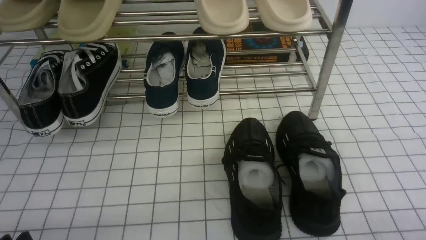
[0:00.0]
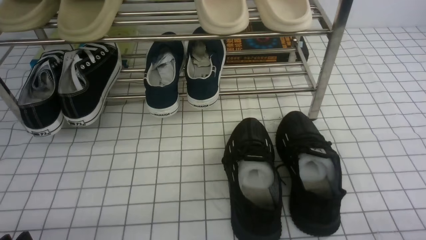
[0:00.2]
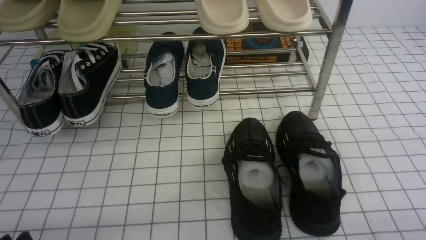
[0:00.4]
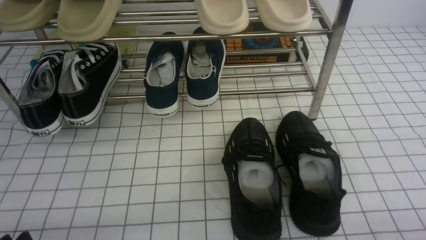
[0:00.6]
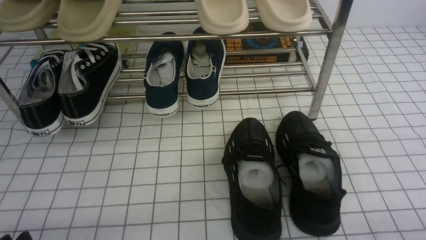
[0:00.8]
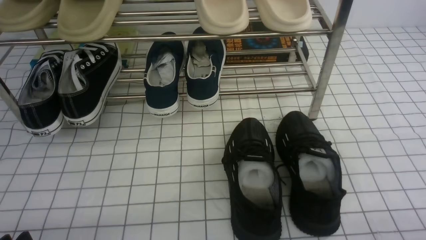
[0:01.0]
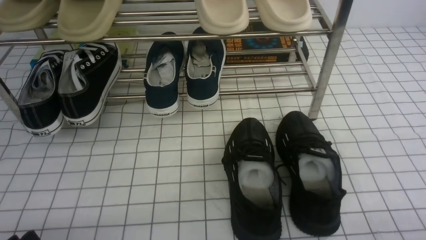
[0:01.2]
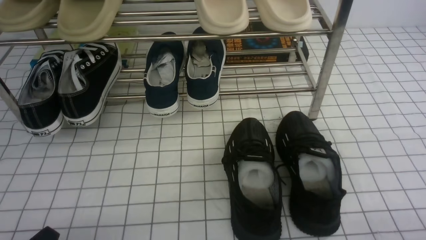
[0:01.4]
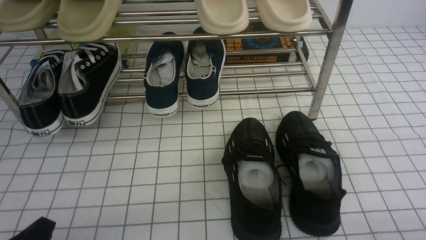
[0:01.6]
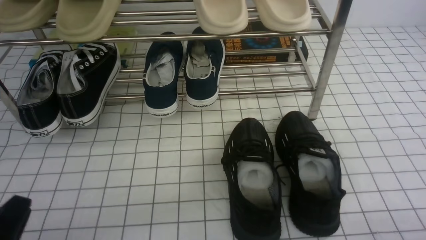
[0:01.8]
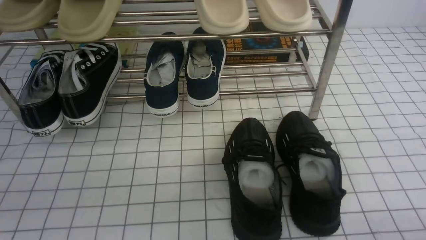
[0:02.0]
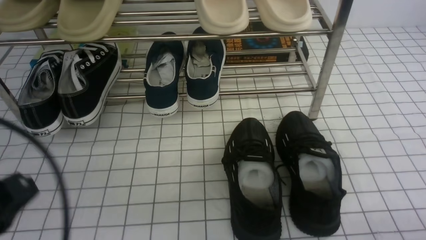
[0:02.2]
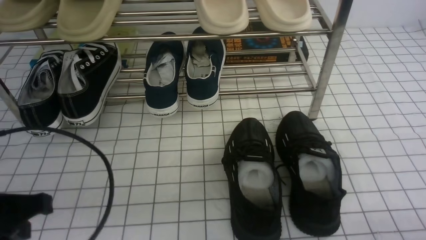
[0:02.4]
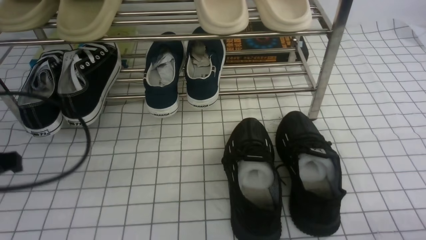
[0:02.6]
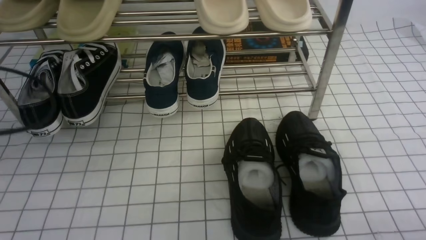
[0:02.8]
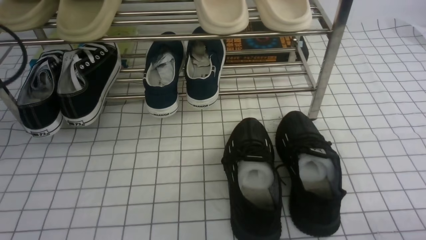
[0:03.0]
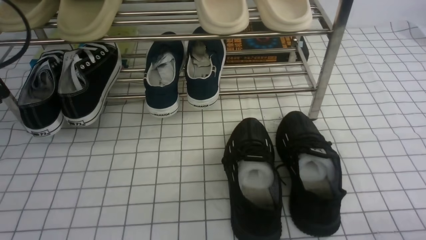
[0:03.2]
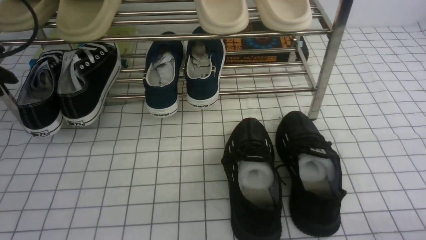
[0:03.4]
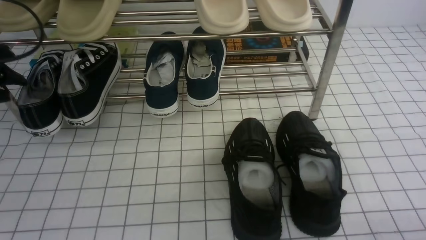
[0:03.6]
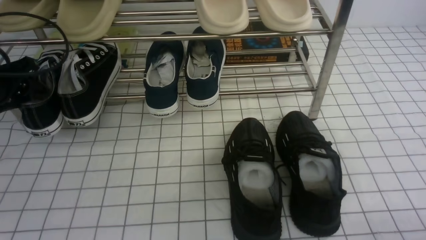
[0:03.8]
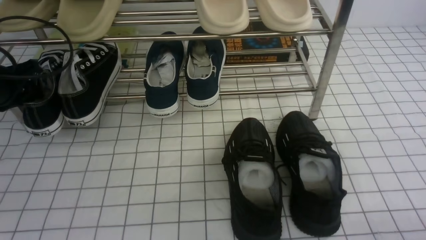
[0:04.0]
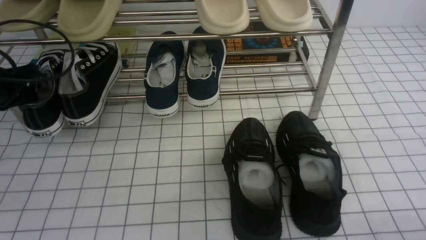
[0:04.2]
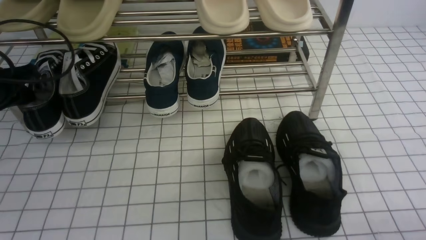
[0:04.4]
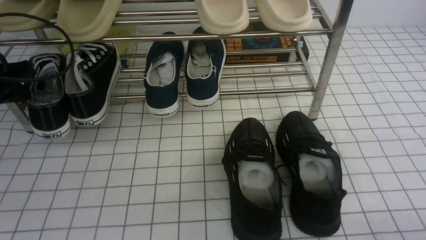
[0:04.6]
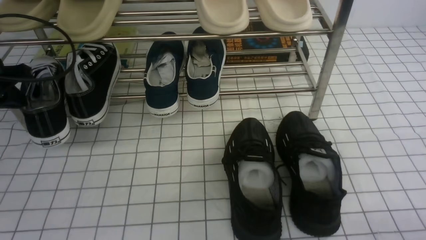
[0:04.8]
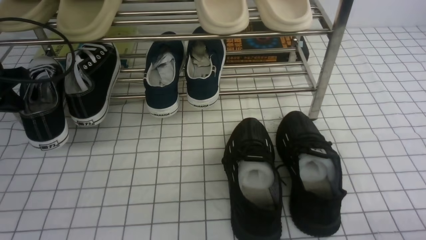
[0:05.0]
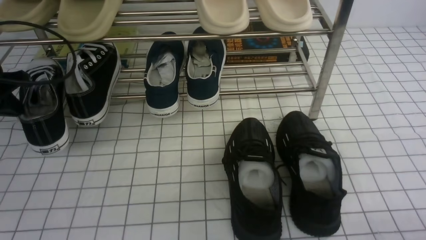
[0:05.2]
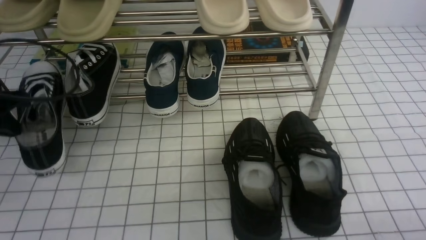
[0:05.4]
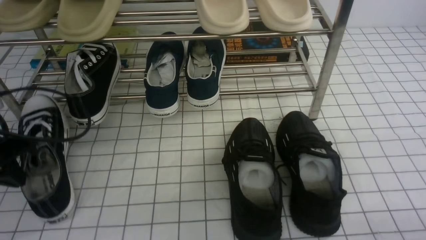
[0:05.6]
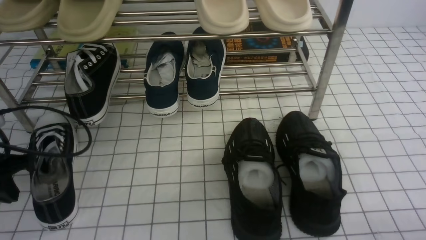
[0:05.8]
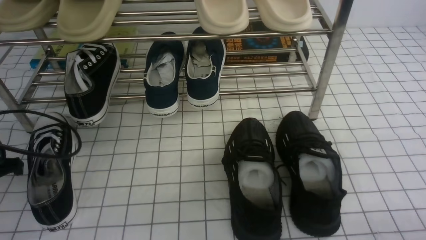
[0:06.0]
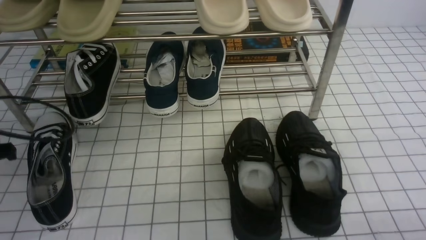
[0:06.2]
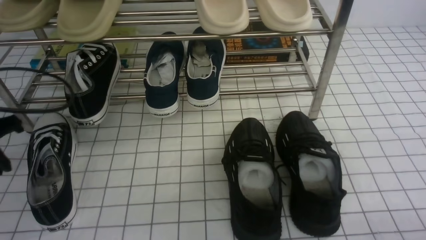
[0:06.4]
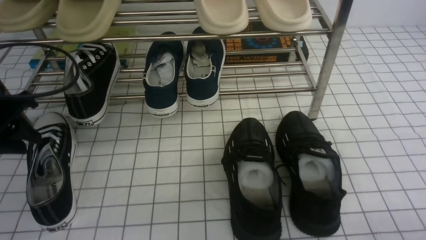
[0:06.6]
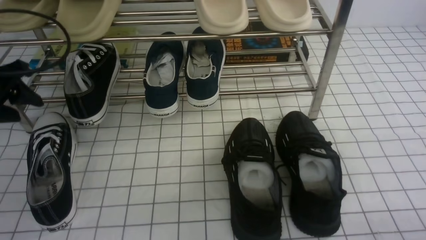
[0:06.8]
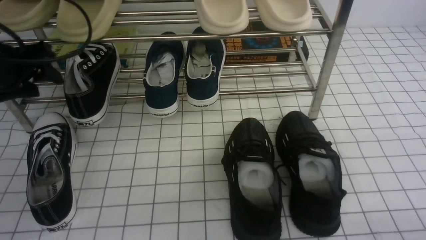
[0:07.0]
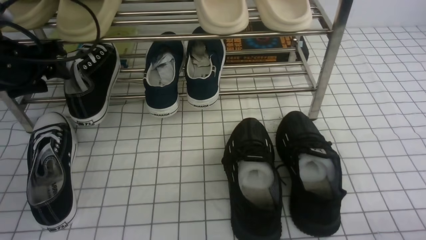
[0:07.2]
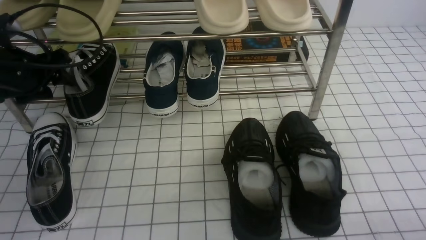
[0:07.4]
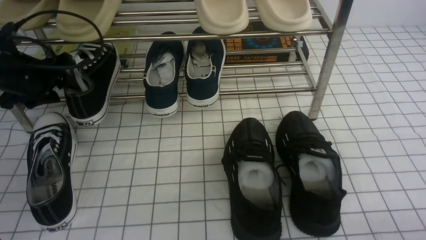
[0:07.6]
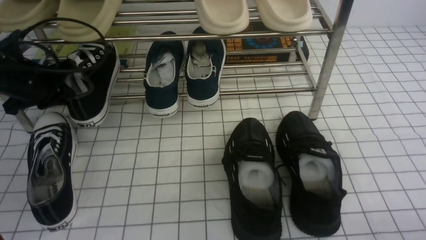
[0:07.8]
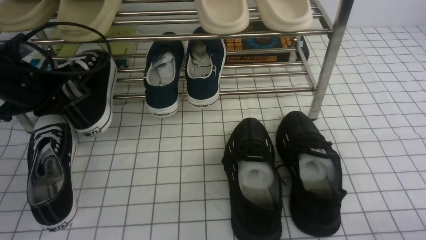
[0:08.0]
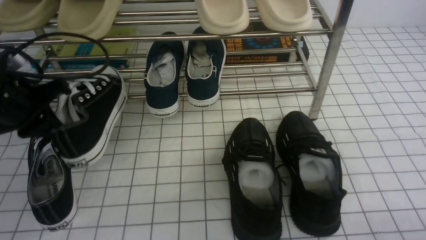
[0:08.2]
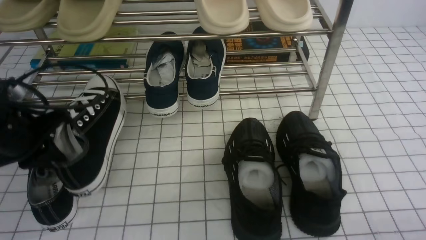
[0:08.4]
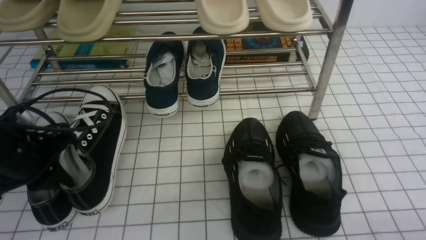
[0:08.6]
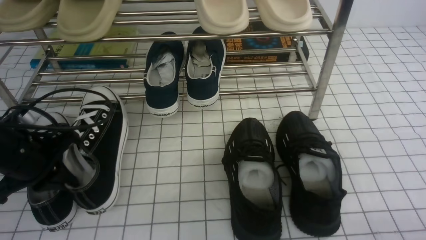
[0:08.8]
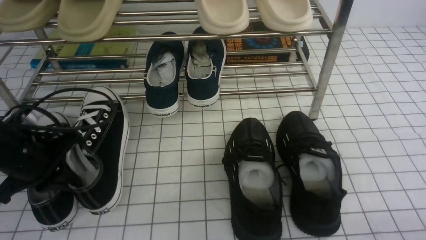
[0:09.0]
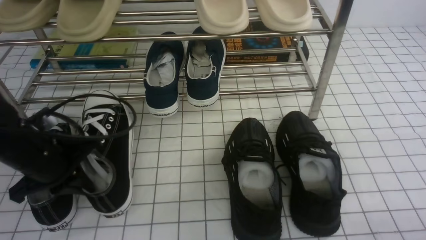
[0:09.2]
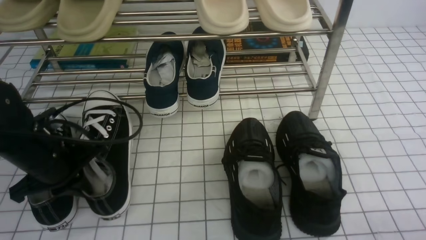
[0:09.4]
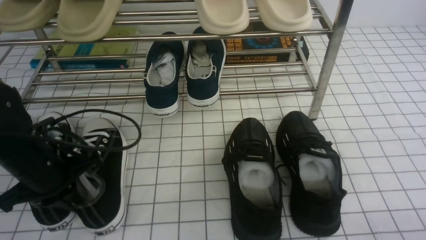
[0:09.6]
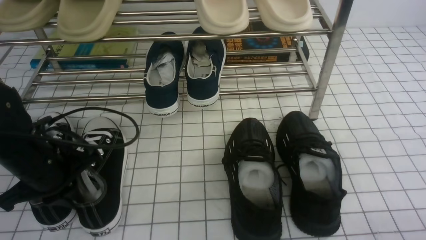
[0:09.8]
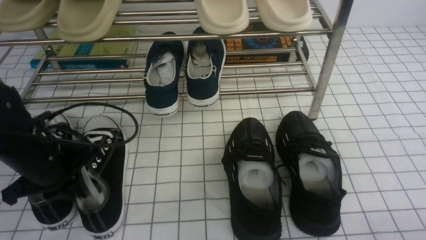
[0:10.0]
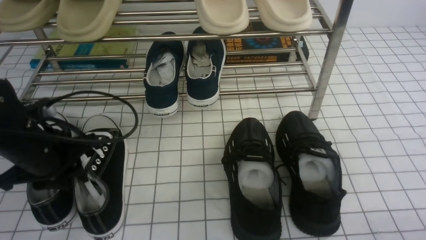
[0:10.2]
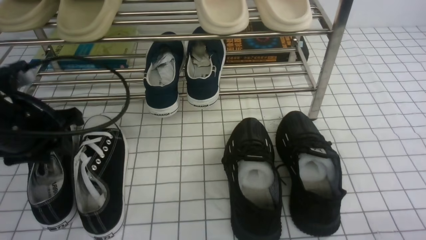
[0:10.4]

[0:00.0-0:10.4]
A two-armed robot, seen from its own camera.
Step, 0:00.0 to 0:04.2: use the left arm to clamp a shoe on the left side of the shoe rack.
Step, 0:04.4 to 0:05.8: Use your left arm to remove the clamped shoe from the shoe rack and put it down.
Step, 0:06.0 to 0:07.8: use the left arm to clamp a shoe on the left side of the shoe rack.
Step, 0:08.0 to 0:10.2: Use your left arm to remove the clamped shoe from the shoe rack and put it down.
0:01.4 to 0:03.0: The left gripper moves forward, upward and to the left, some 25 cm, and closes its fingers.
0:03.0 to 0:04.4: The left gripper heads forward and downward, covering some 10 cm, and opens, then closes once more.
0:04.4 to 0:06.0: The left gripper heads backward, covering about 10 cm.
0:06.0 to 0:07.4: The left gripper is displaced forward by about 10 cm, and opens its fingers.
0:07.4 to 0:09.0: The left gripper travels backward and downward by about 10 cm, and closes its fingers.
0:09.0 to 0:10.4: The left gripper is displaced upward by some 10 cm, and opens up.

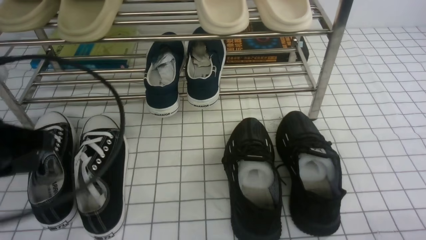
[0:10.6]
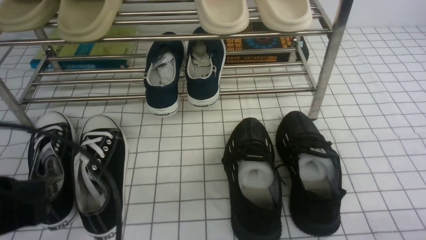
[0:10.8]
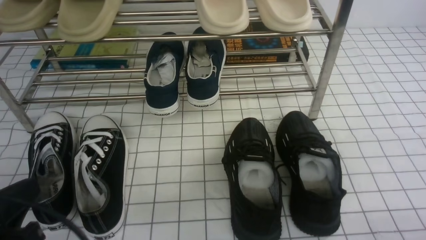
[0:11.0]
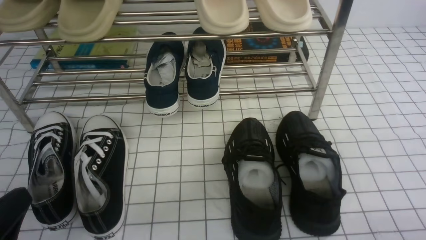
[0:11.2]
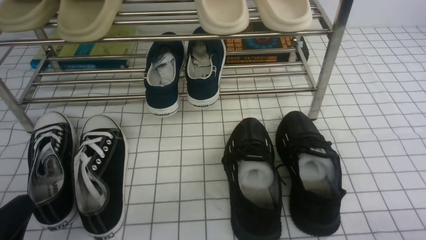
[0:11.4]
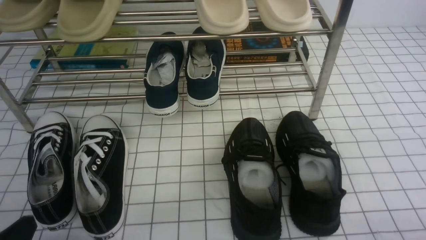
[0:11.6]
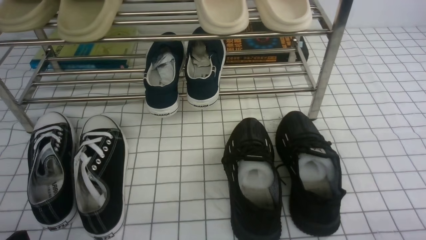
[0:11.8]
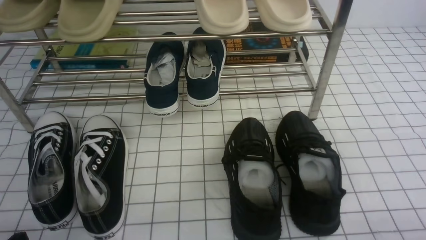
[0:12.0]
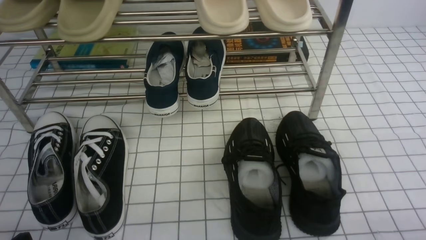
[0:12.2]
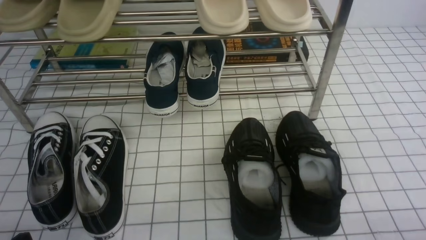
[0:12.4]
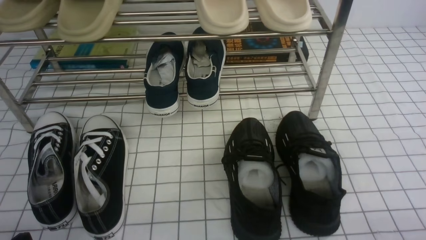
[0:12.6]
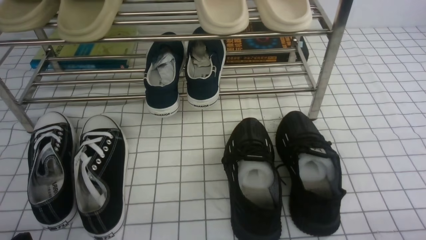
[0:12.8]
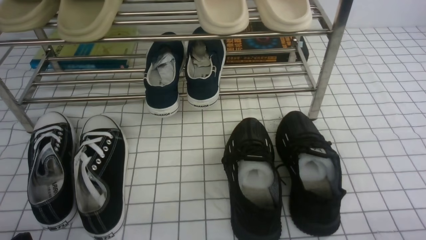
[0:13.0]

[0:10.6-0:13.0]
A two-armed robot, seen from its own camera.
0:10.6 to 0:11.8: The left gripper is displaced downward and backward by about 20 cm.
0:11.8 to 0:13.0: The two grippers keep their place.

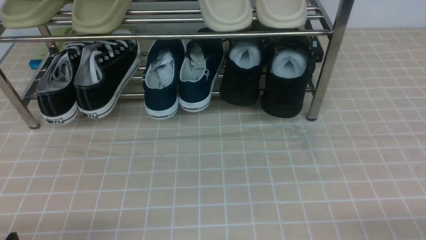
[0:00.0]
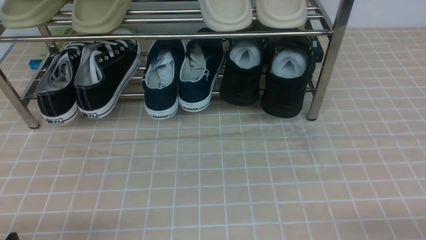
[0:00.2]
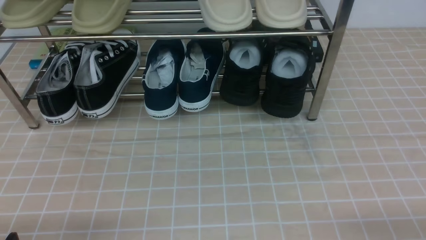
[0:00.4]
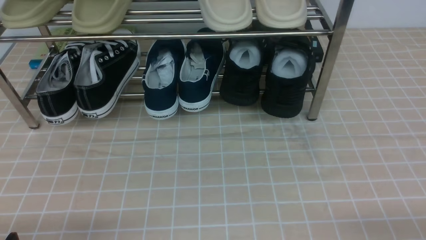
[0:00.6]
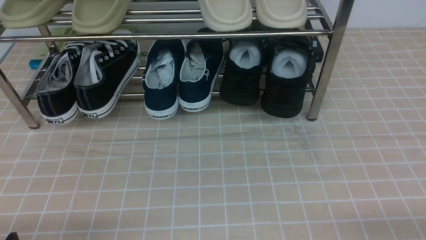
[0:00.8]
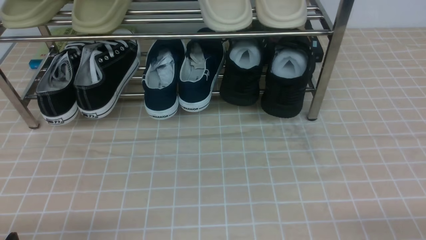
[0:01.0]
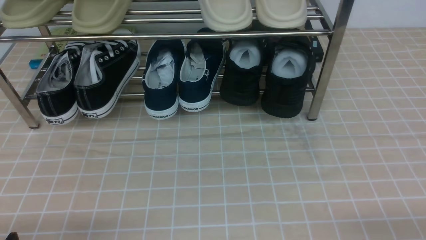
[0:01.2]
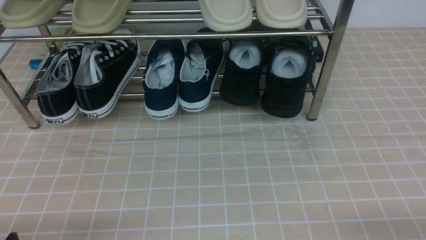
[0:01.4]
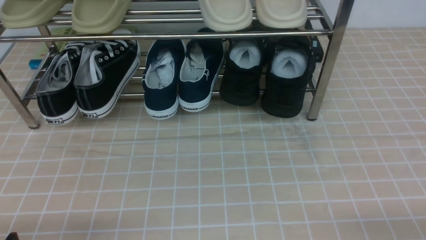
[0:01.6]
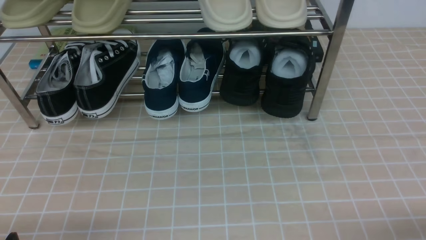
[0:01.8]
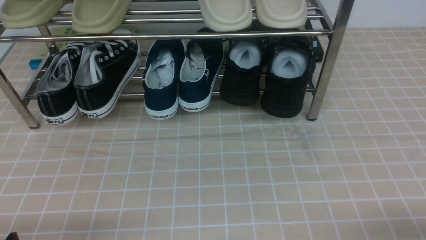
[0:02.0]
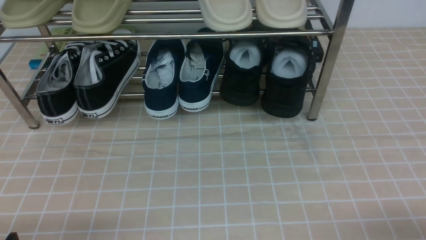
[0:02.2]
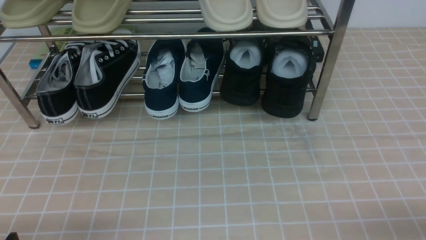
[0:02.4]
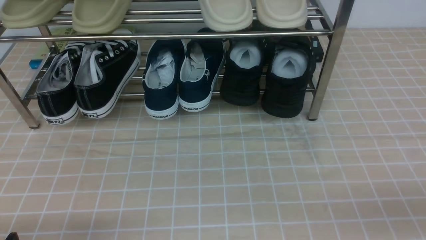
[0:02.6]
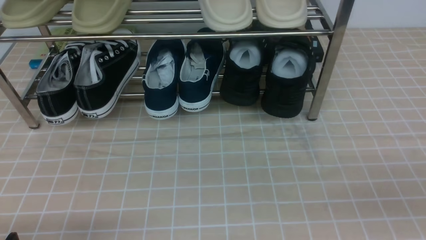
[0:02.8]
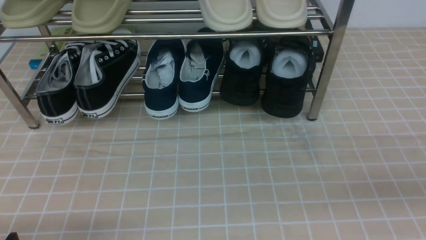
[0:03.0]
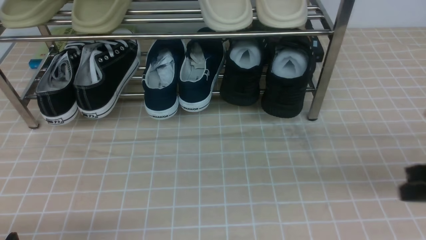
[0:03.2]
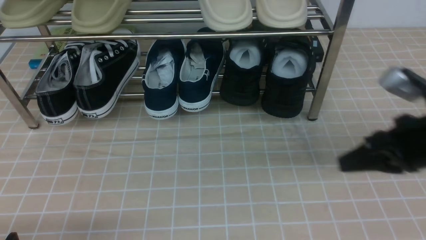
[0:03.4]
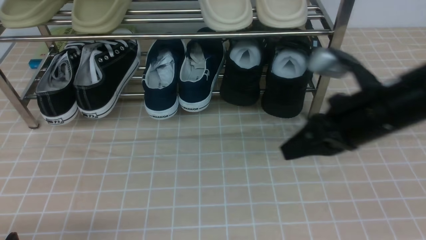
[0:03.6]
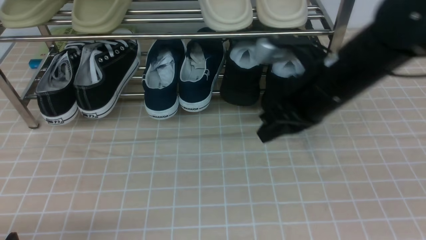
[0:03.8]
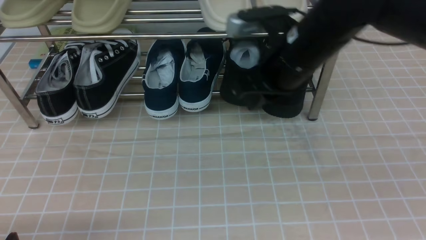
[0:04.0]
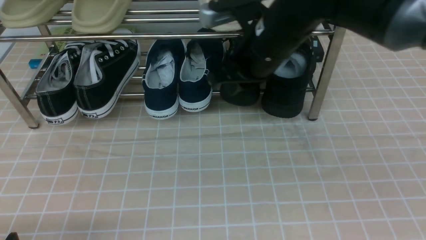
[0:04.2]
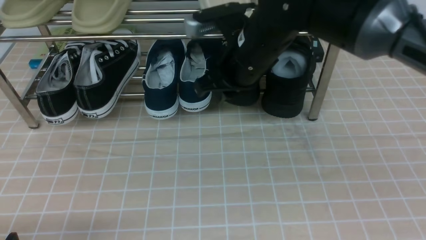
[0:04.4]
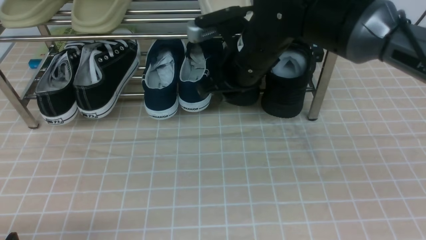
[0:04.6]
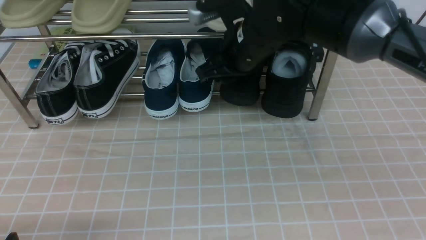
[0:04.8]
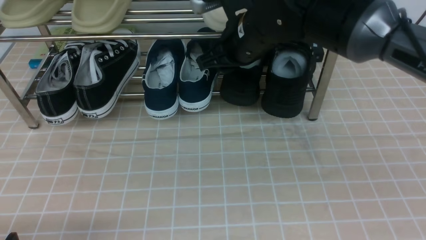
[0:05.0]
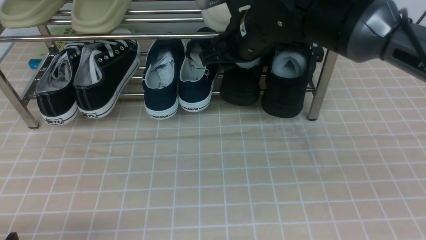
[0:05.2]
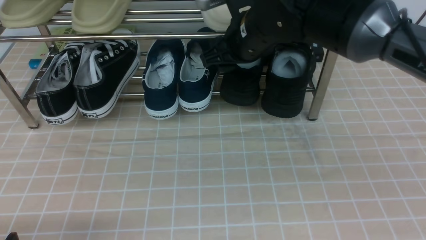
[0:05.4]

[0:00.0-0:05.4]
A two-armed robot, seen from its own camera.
0:00.0 to 0:01.4: Neither gripper changes place.
0:01.4 to 0:02.8: The right gripper goes some 10 cm upward, and closes its fingers.
0:02.8 to 0:04.0: The right gripper travels forward and to the left by roughly 30 cm.
0:04.0 to 0:05.4: The right gripper goes roughly 5 cm forward, and opens.
